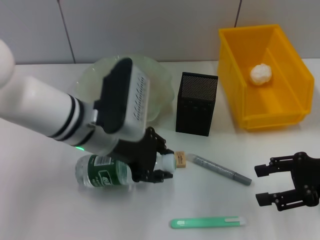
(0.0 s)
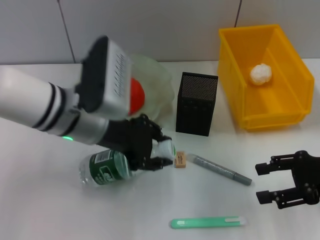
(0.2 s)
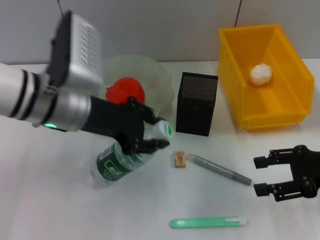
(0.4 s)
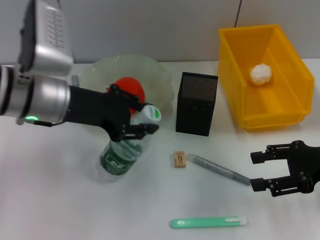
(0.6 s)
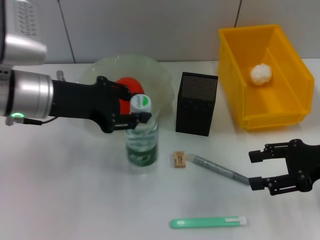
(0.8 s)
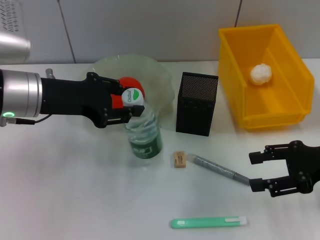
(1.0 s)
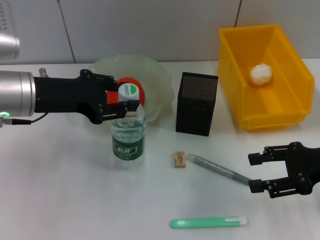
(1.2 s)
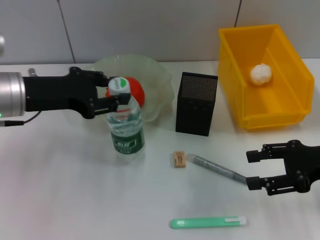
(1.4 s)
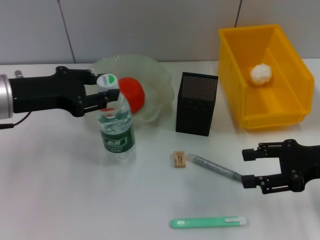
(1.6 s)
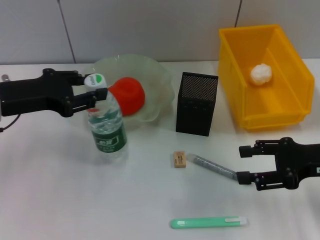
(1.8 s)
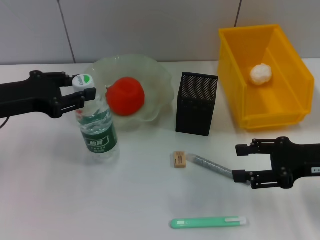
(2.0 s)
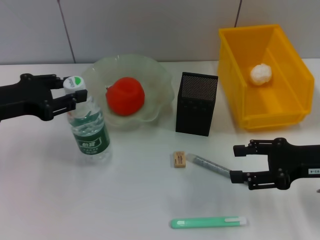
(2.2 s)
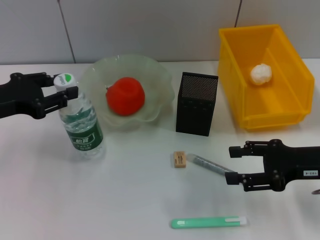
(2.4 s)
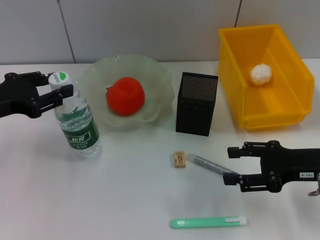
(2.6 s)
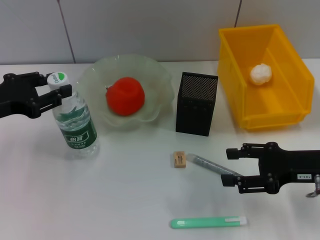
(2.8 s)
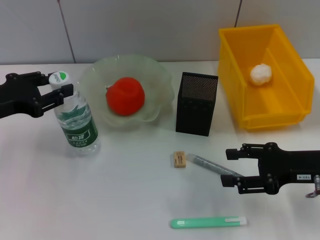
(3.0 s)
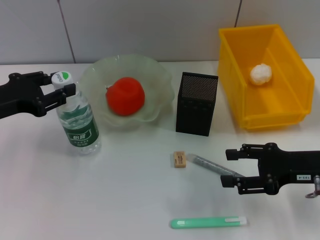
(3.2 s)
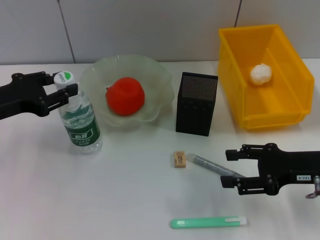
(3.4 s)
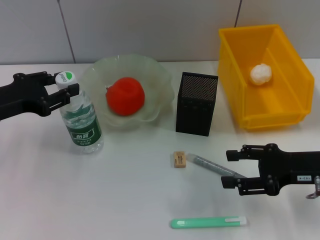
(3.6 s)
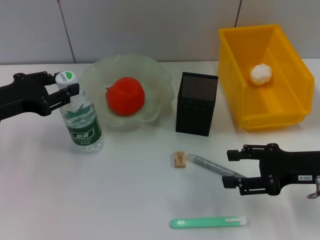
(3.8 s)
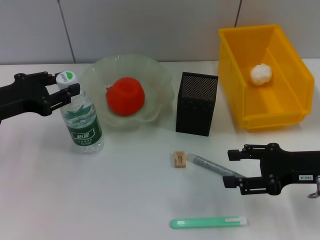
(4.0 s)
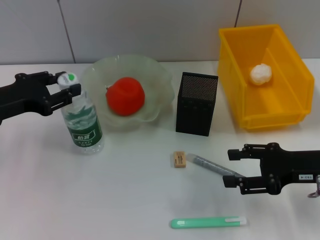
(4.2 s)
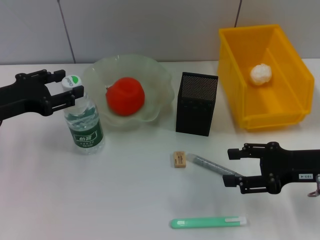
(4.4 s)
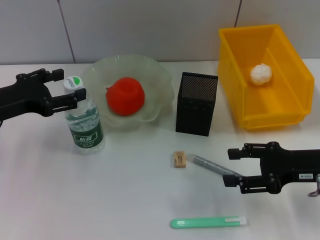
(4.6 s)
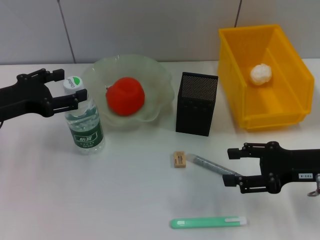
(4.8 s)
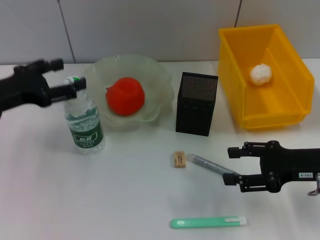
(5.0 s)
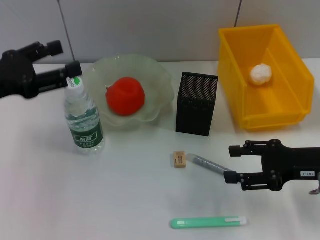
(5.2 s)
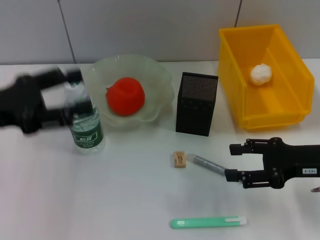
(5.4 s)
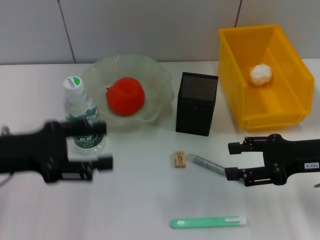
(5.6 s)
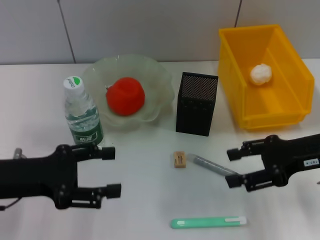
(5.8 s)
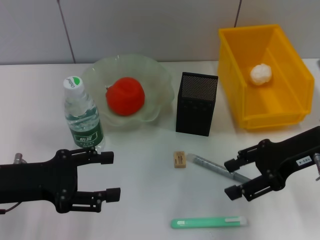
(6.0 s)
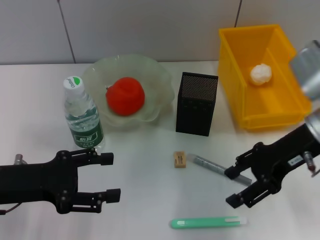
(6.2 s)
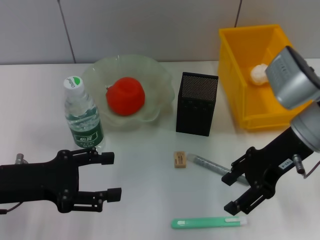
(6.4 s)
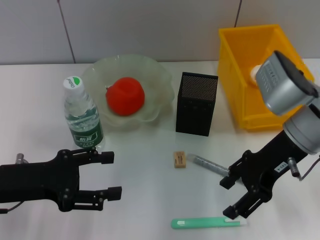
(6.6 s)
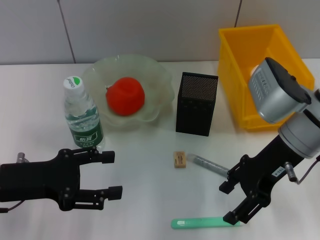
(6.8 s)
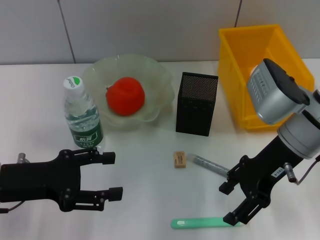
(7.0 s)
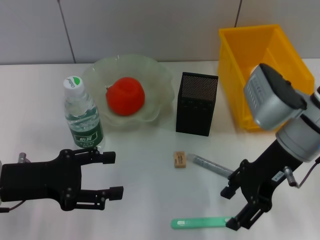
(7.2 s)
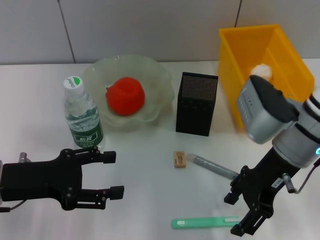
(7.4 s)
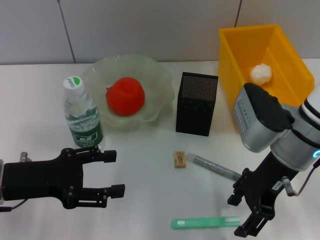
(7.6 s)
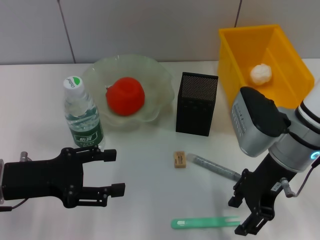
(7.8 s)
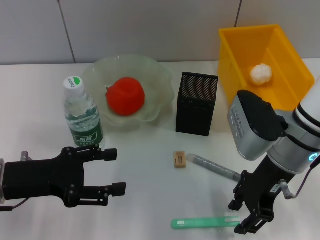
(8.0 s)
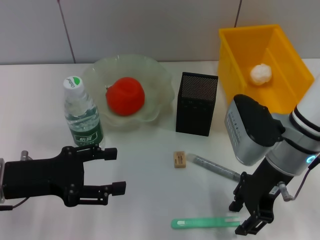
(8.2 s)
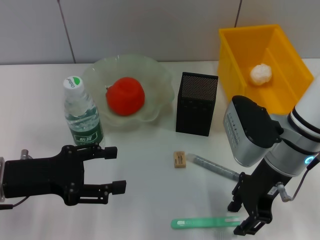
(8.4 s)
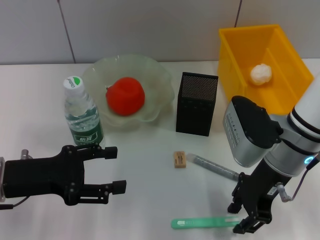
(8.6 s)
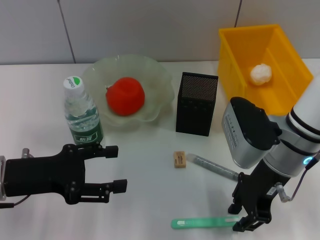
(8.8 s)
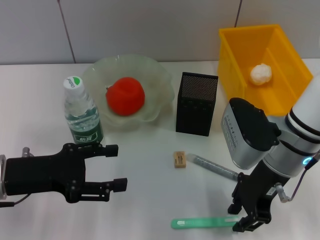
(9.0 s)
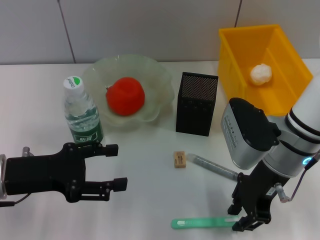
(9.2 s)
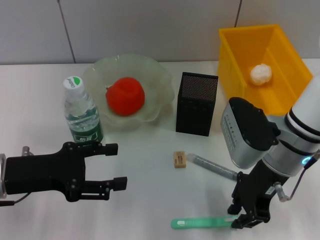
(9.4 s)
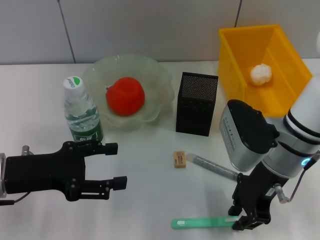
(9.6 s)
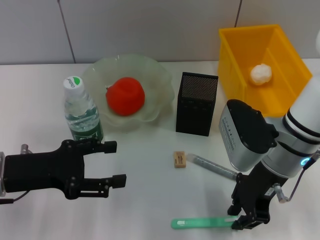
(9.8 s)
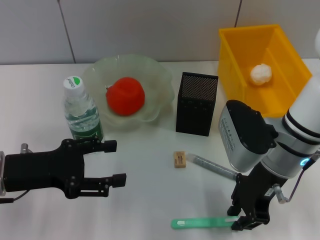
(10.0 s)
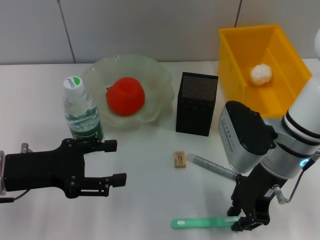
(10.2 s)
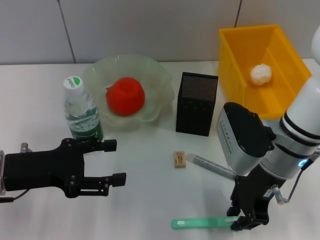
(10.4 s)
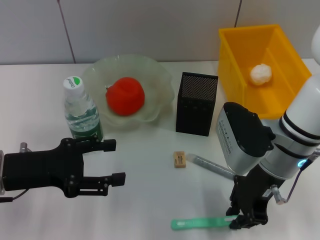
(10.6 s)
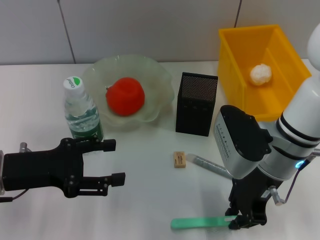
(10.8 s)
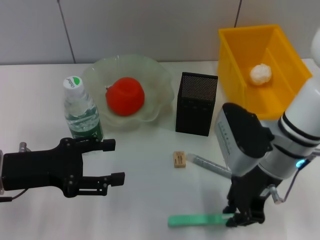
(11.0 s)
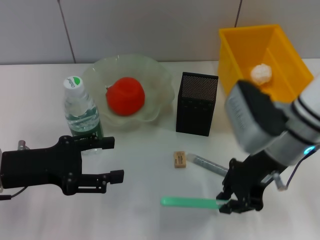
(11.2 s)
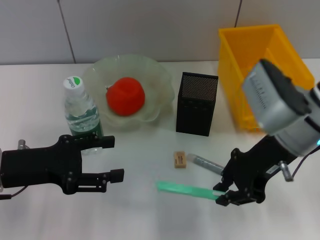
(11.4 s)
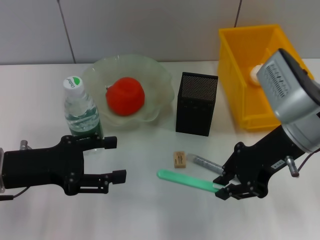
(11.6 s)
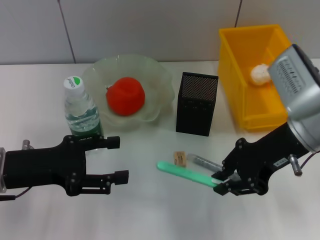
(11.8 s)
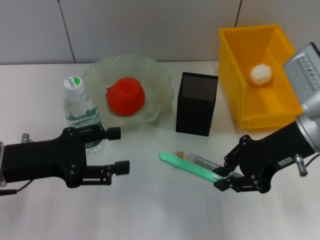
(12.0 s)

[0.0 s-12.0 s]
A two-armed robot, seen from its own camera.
Step, 0.0 to 4.4 s: Place the water bottle on the table with the left hand.
Step, 4.6 to 10.6 s: Grab the blue utility knife with the right hand.
0.0 to 1.6 s: The left gripper heads to the left, covering about 15 cm.
1.6 to 3.0 s: The left gripper is displaced to the left by approximately 5 cm.
3.0 to 4.4 s: The grippers make only small movements.
4.4 to 6.0 s: The left gripper moves backward, about 5 cm. Meanwhile the right gripper moves upward, some 5 cm.
6.0 to 7.6 s: The right gripper heads to the left, covering roughly 10 cm.
7.6 to 9.0 s: The right gripper closes.
9.0 to 10.4 s: Both grippers stay about where they are.
10.4 to 12.0 s: The right gripper goes about 5 cm to the right.

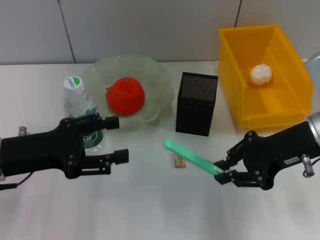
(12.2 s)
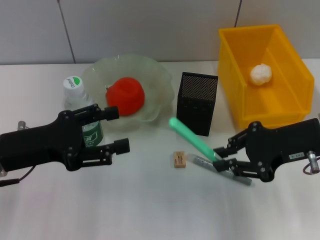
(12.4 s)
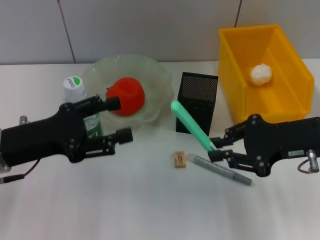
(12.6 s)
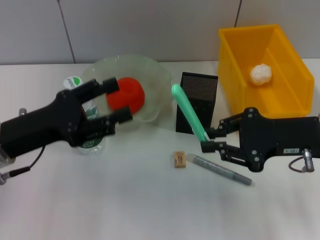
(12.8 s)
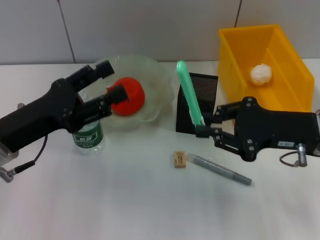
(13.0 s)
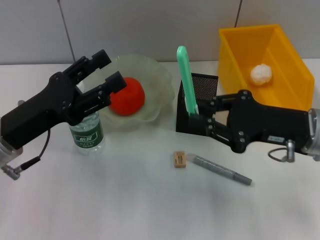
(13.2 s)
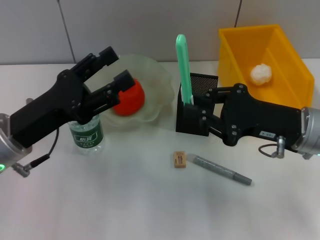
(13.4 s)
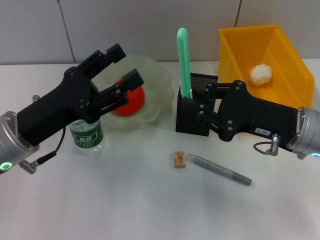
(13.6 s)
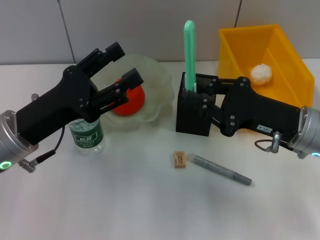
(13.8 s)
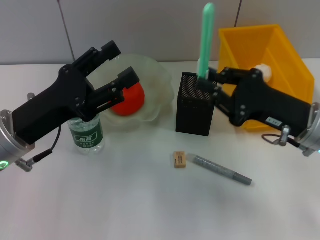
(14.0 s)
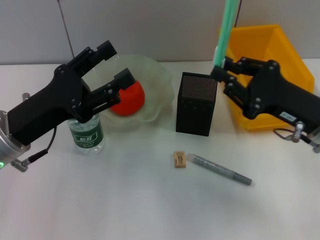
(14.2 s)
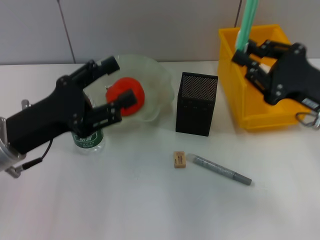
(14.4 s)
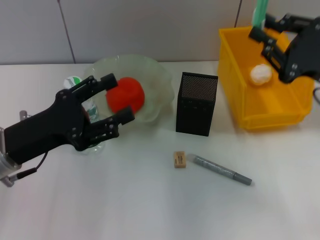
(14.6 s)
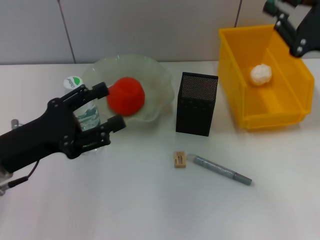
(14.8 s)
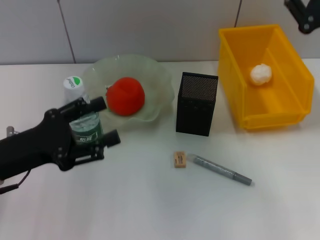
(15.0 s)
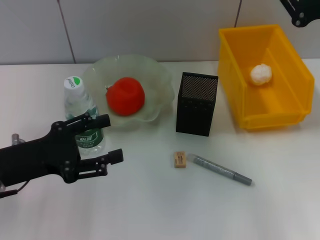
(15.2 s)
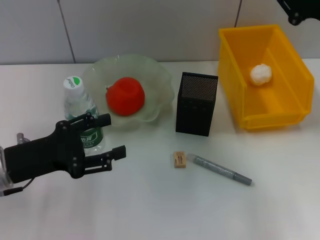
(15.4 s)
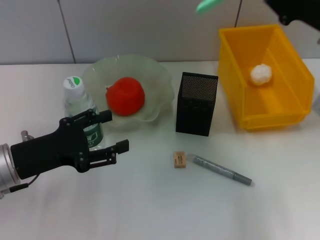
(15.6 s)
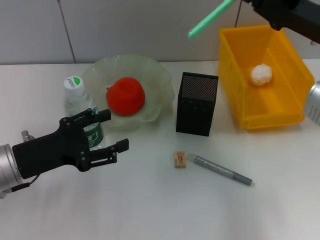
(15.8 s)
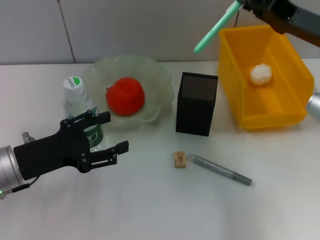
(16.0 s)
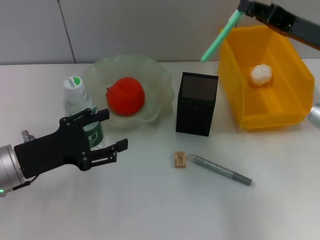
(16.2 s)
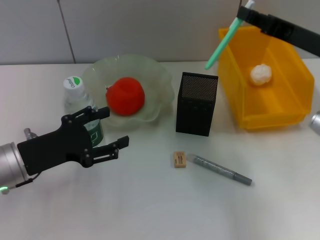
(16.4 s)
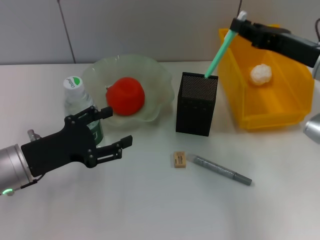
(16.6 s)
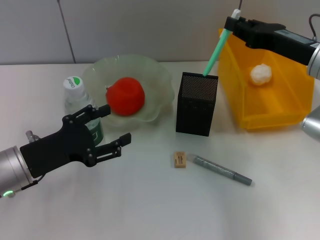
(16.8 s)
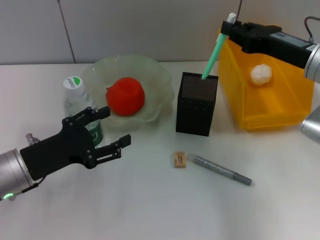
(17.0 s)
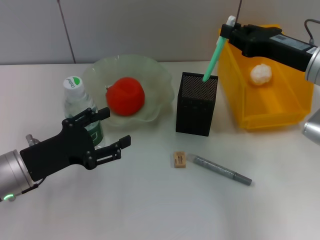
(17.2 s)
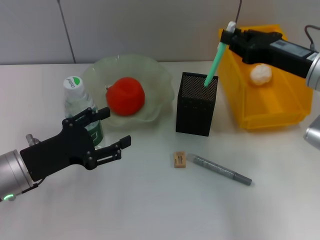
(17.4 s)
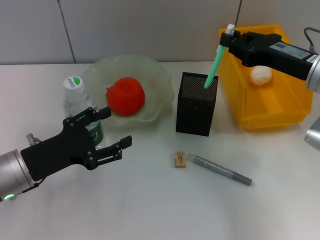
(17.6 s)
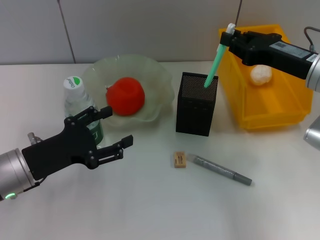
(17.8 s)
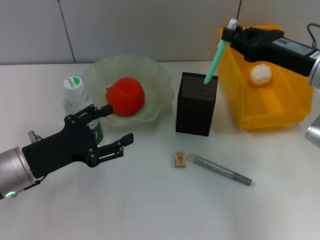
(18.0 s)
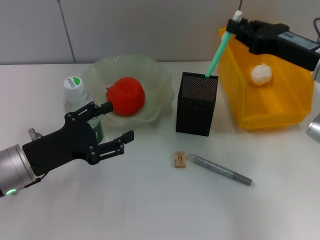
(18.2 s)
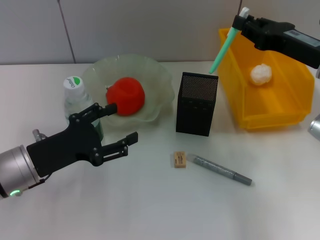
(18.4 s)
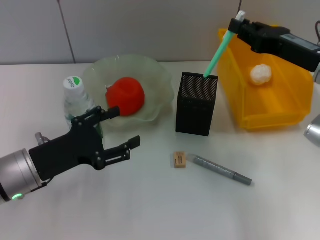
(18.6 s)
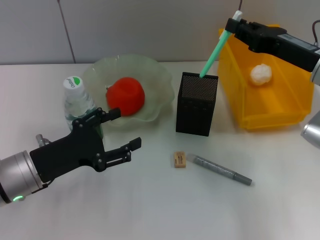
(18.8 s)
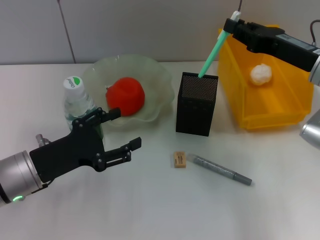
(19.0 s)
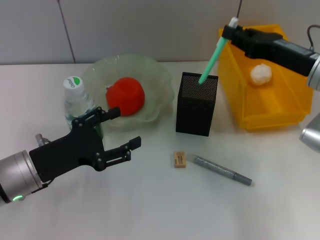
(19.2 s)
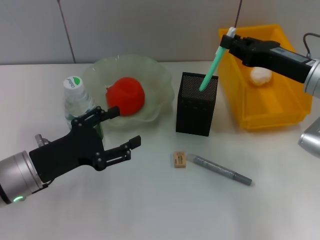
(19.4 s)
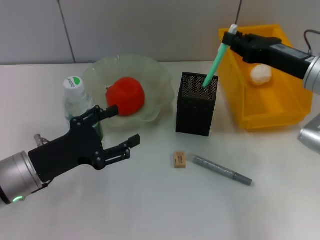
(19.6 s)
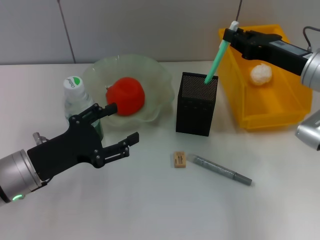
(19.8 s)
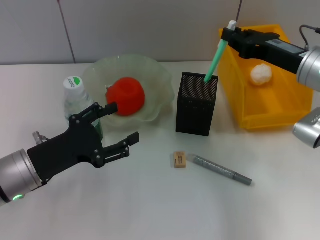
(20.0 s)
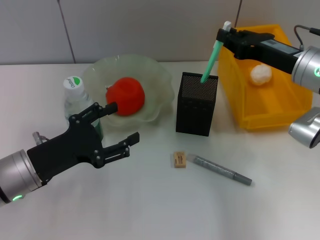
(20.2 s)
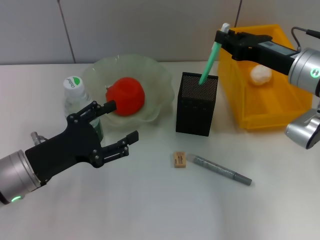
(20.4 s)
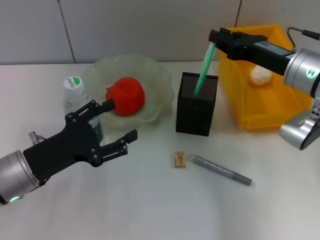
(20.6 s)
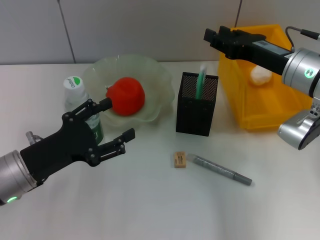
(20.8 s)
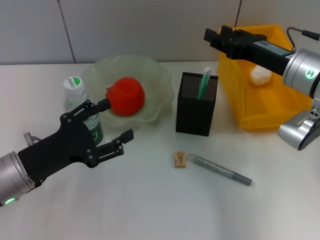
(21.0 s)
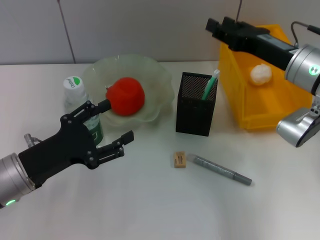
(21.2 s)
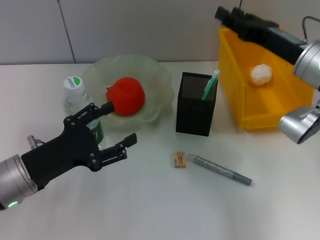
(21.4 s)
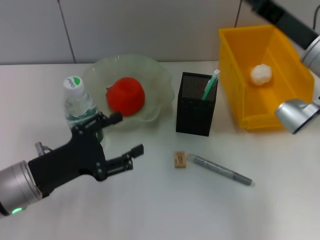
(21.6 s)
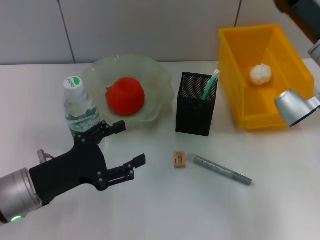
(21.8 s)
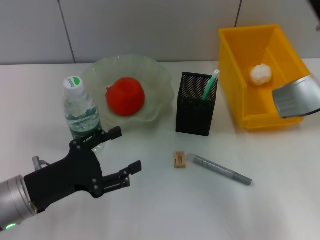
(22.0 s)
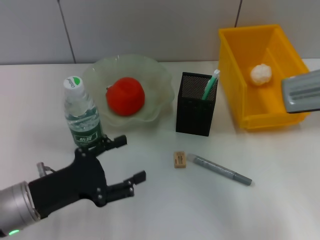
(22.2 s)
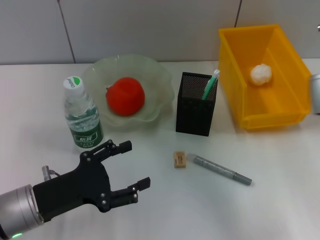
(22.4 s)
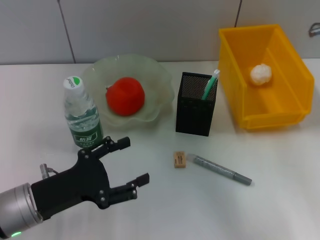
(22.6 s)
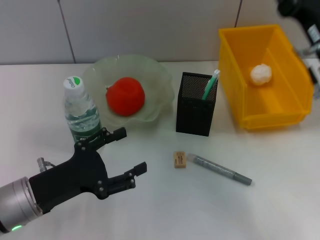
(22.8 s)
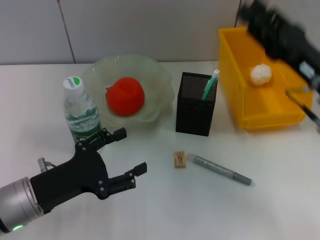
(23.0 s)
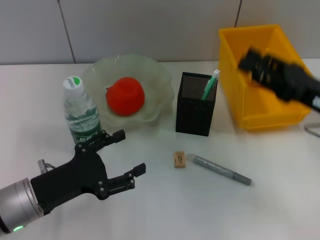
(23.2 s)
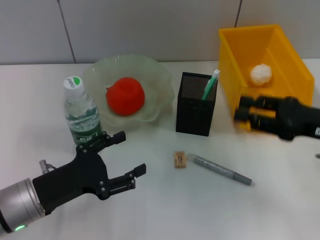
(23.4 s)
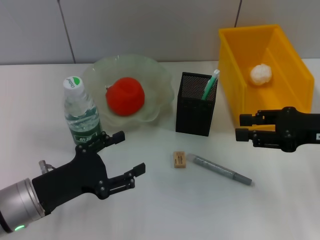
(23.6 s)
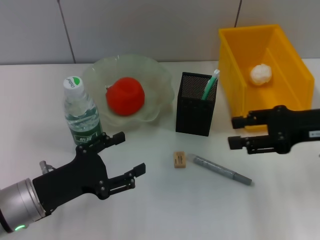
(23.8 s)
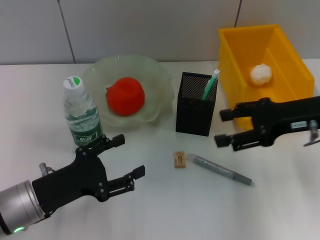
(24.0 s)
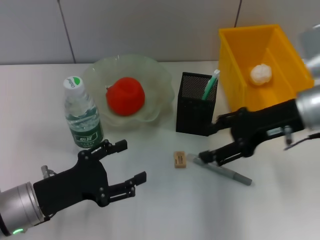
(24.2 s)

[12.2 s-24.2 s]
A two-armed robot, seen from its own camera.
Step, 12.2 to 21.0 s: Place the blue utility knife into the pen holder with the right hand.
12.2 to 13.8 s: The right gripper shifts roughly 5 cm downward.
13.8 to 15.2 s: The left gripper changes place by some 5 cm, while the right gripper is displaced upward and to the right by approximately 10 cm.
15.2 to 16.6 s: The right gripper changes place by about 5 cm.
16.6 to 19.8 s: The grippers move only a little.
19.8 to 21.2 s: The right gripper opens.
